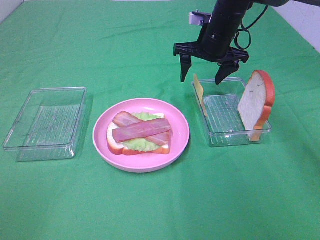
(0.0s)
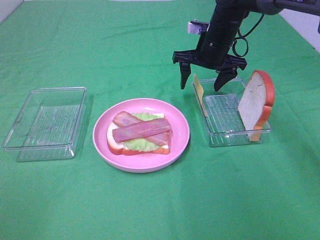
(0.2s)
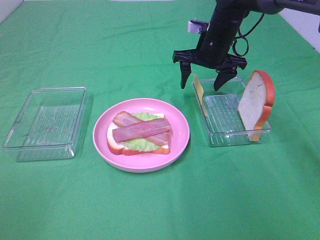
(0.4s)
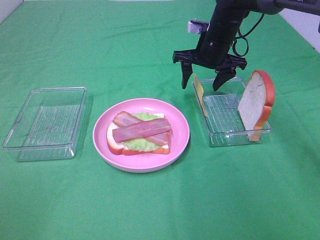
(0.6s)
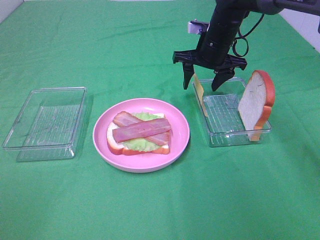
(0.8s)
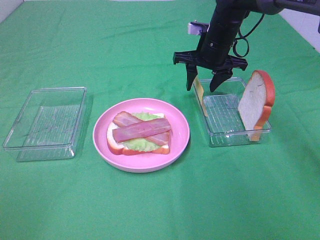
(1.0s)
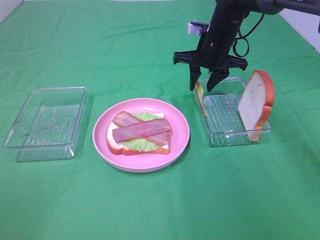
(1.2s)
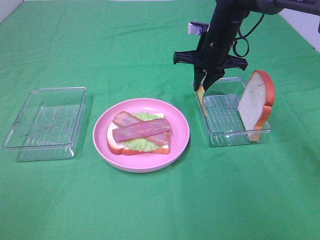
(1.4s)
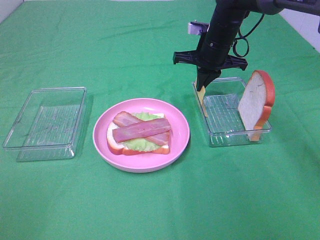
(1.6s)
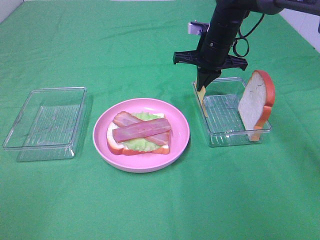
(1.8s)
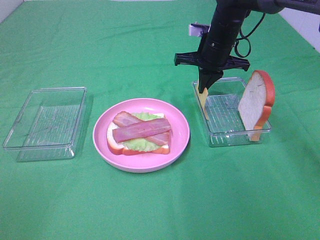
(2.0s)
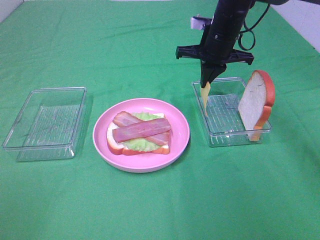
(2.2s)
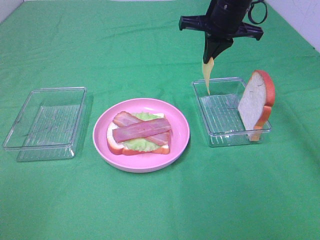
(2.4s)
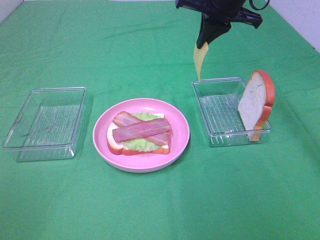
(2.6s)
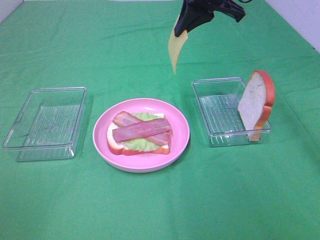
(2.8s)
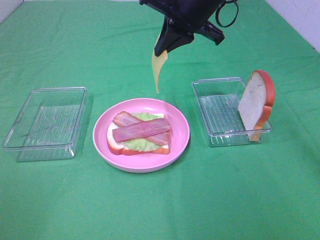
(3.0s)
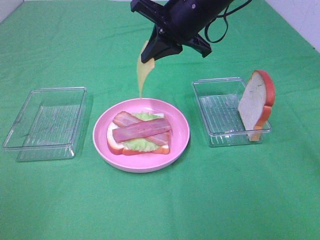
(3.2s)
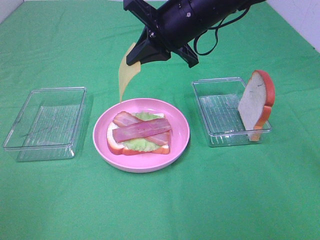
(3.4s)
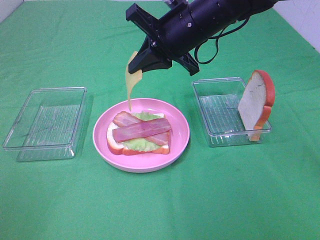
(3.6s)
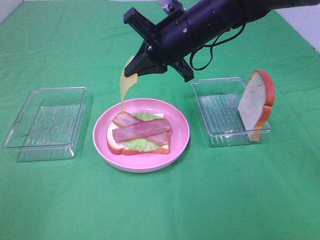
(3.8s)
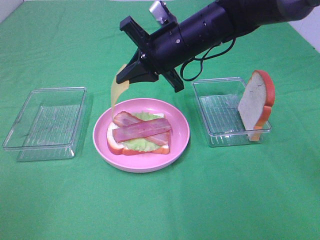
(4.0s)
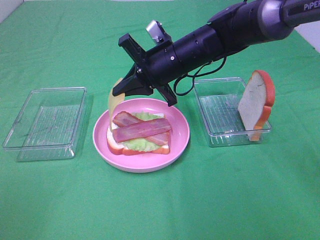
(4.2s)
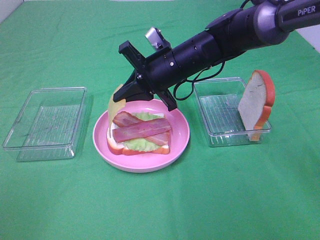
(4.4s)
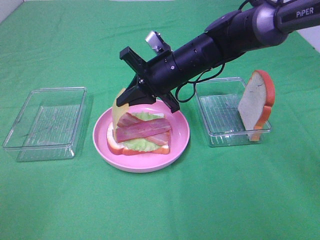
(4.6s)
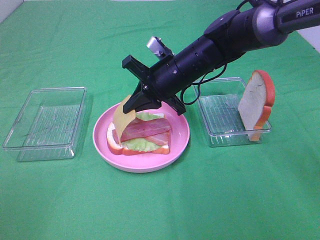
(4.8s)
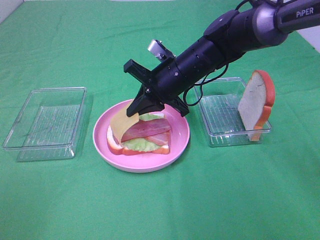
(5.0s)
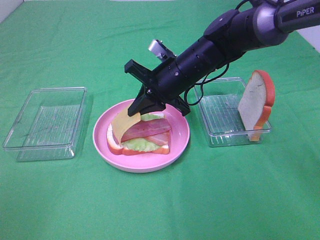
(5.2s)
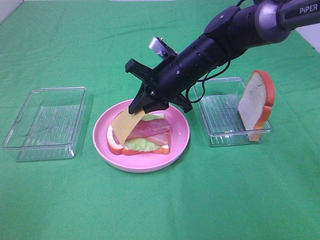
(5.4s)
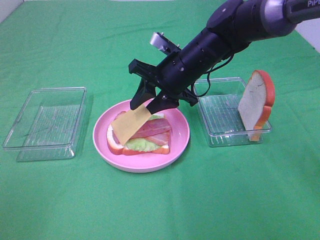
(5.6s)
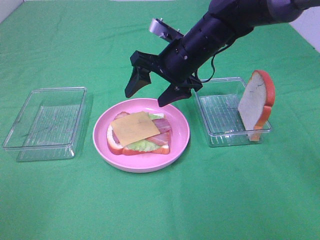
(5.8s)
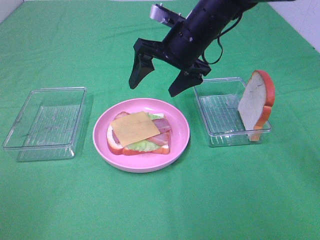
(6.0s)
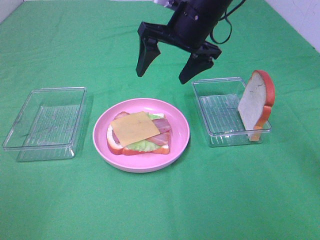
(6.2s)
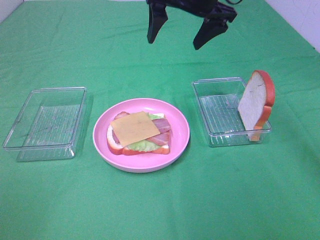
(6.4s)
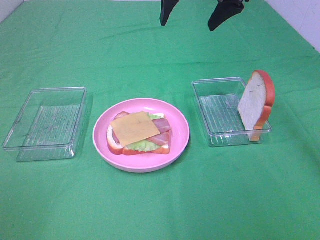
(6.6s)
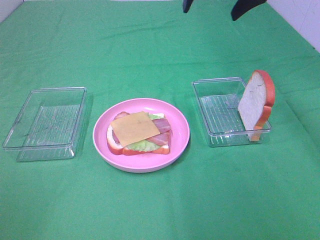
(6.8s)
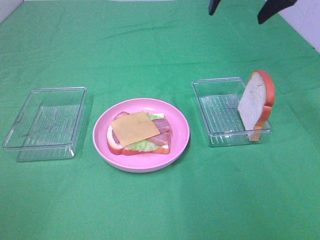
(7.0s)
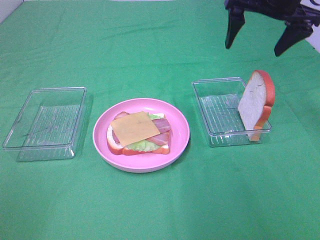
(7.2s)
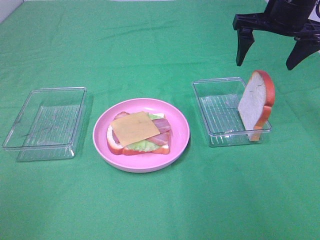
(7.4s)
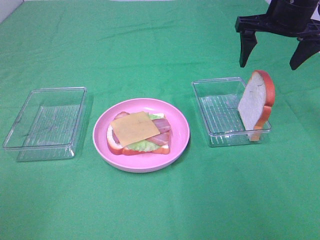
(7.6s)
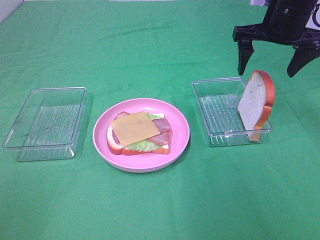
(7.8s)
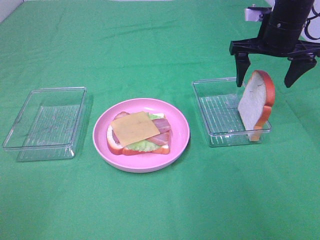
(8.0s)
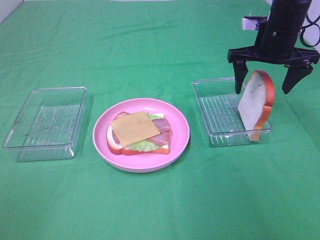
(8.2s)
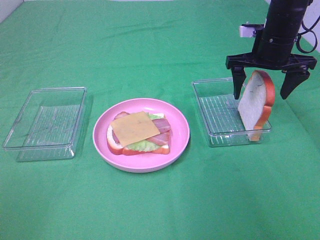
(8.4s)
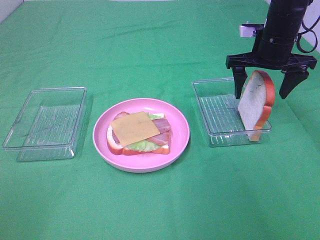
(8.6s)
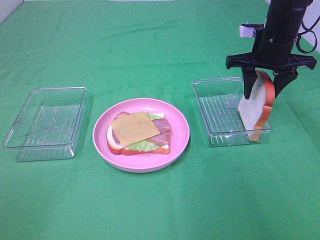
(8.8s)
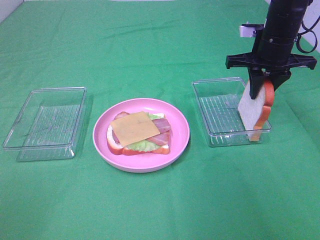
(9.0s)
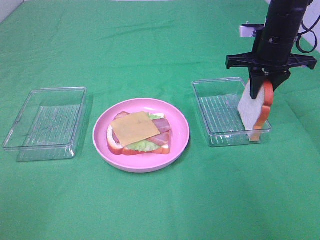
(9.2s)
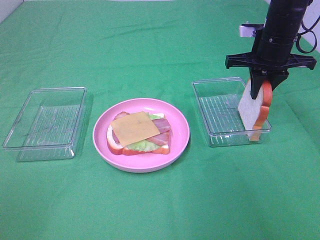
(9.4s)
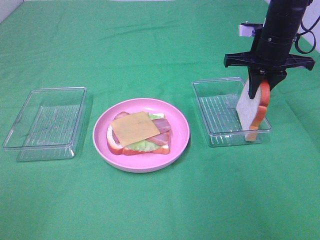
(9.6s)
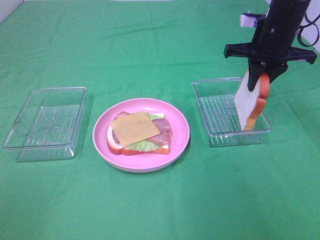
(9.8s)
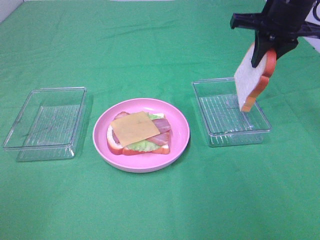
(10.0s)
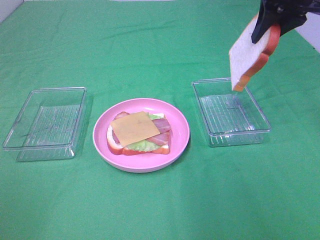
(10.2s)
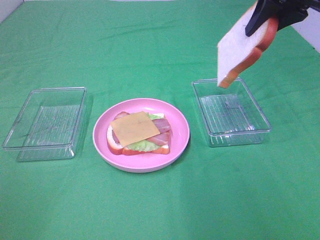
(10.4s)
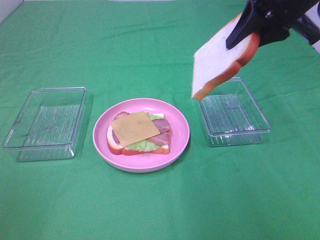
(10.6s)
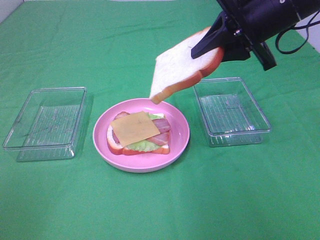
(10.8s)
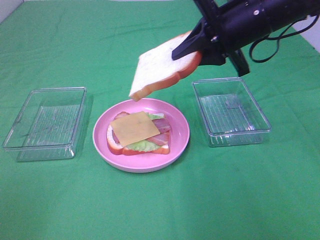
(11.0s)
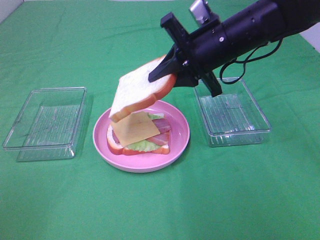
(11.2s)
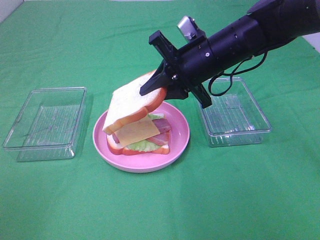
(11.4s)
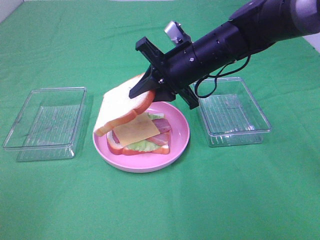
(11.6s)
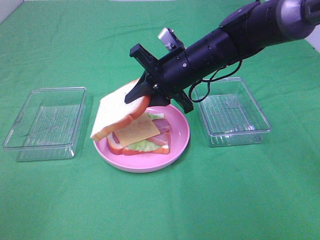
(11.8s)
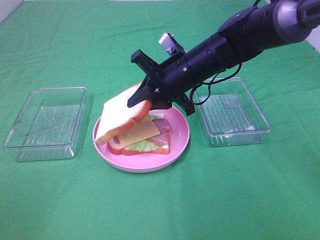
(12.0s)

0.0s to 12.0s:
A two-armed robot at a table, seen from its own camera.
Task of the whole recording: Make sandwiches.
Step, 0.0s to 2.0s: Right hand:grab the cheese slice.
Step, 2.2s to 5.8s: Right hand:place the cheese slice on top of the bacon.
Step, 6.0s to 9.4s: Right hand:grab the bread slice.
0.0s to 1.6s: The right gripper closes its fingers.
1.6s to 3.0s: The right gripper travels upward and backward by approximately 15 cm.
3.0s to 4.4s: The right gripper shifts approximately 10 cm downward.
4.4s to 6.0s: The right gripper travels upward by about 5 cm, and opens.
6.0s to 7.6s: The right gripper shifts about 15 cm to the right.
7.6s to 9.0s: The right gripper moves downward, roughly 5 cm, and closes its fingers.
9.0s to 10.4s: The right gripper heads upward and backward, covering roughly 15 cm.
10.4s to 12.0s: The right gripper shifts approximately 25 cm downward and to the left.

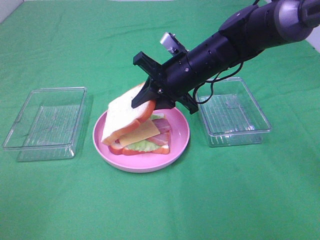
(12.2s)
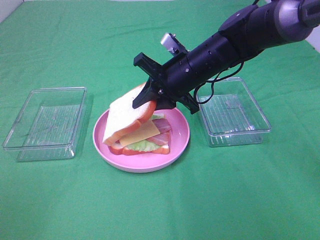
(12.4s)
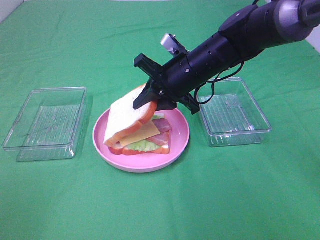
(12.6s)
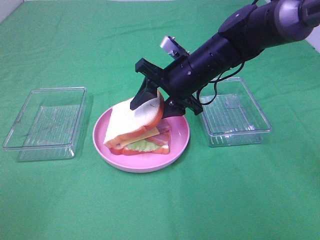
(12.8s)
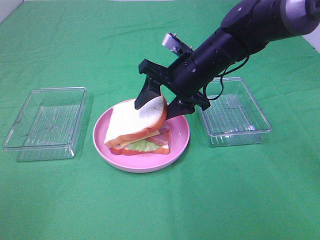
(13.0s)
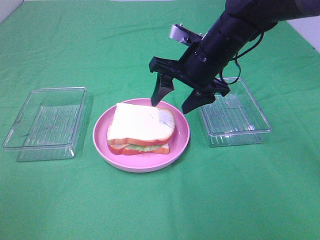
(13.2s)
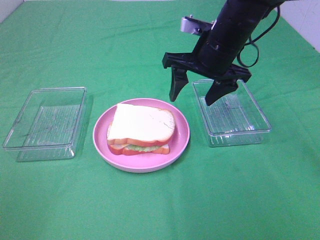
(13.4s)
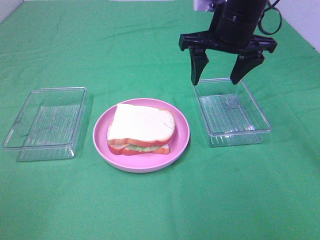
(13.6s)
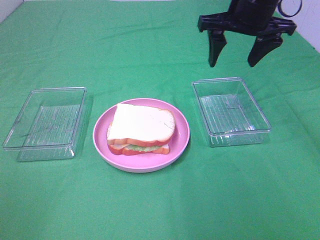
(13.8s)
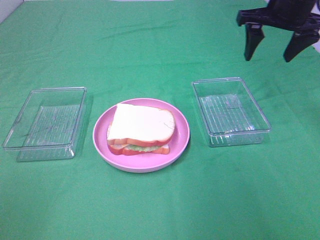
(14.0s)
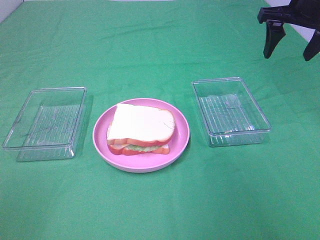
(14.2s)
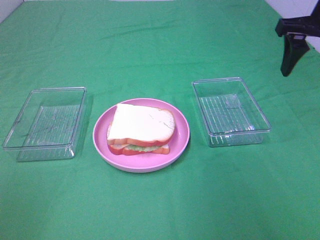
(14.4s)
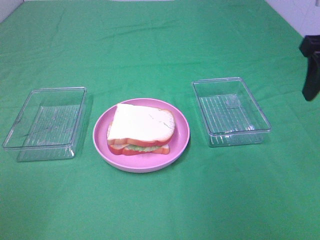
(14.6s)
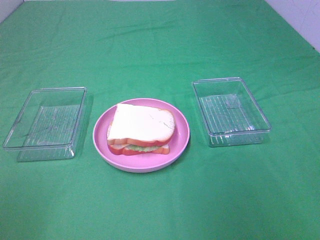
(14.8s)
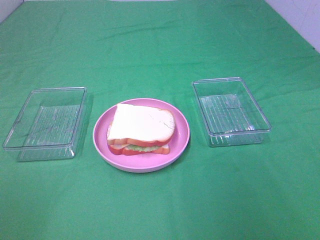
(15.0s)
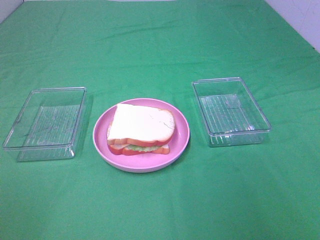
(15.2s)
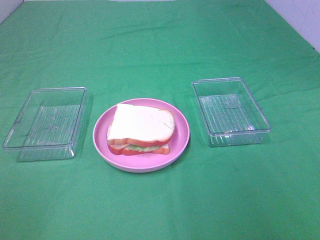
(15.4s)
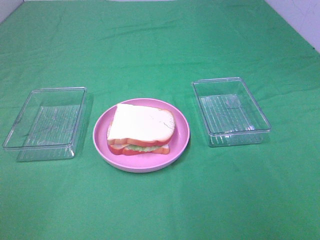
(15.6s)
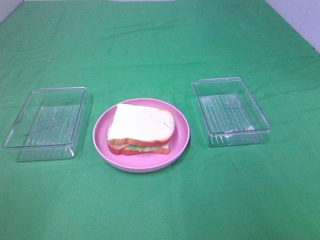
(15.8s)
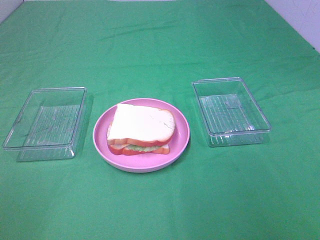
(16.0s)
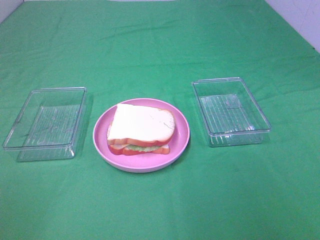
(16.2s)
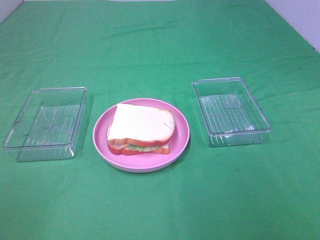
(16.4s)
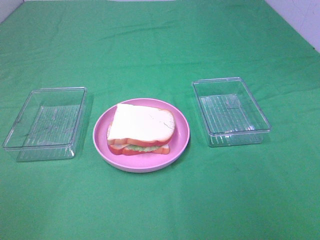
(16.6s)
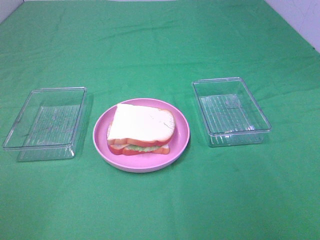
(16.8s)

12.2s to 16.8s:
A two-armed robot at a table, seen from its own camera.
Task of the whole recording: Make sandwiches.
12.2s to 13.8s: The right gripper is displaced upward and to the right by approximately 15 cm, and opens its fingers.
13.8s to 15.2s: The right gripper travels backward by some 35 cm.
